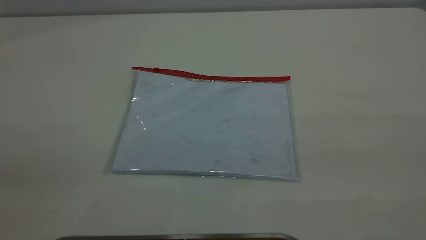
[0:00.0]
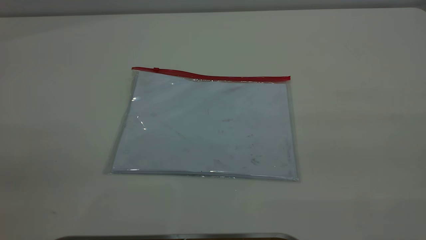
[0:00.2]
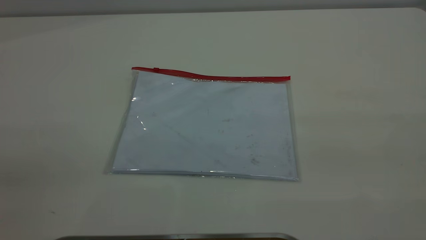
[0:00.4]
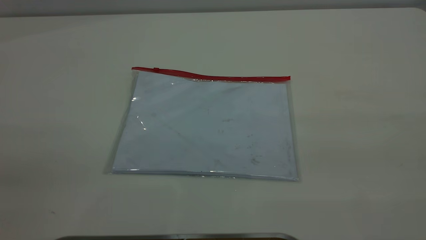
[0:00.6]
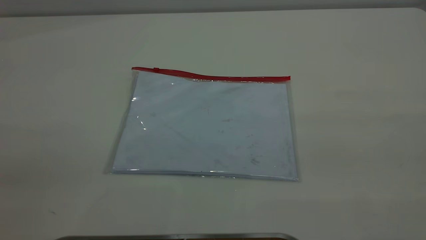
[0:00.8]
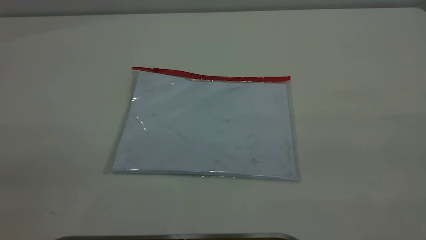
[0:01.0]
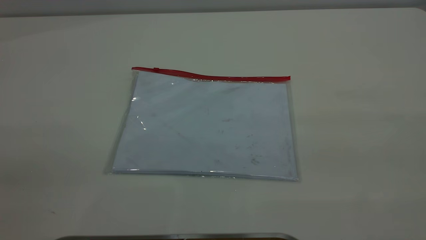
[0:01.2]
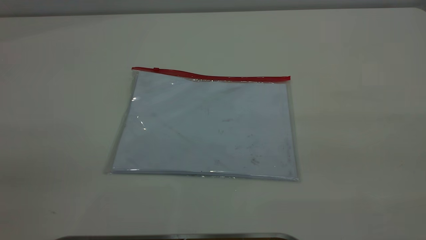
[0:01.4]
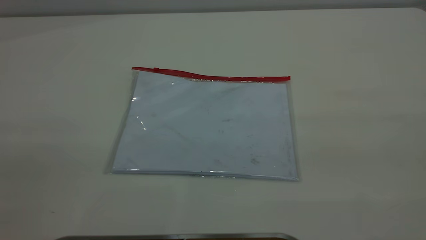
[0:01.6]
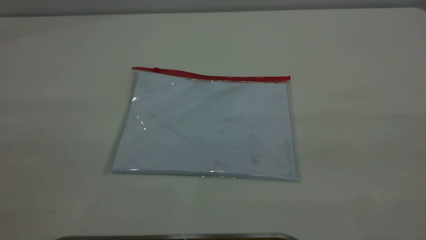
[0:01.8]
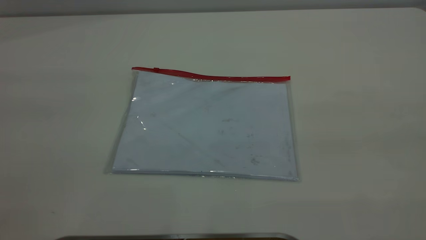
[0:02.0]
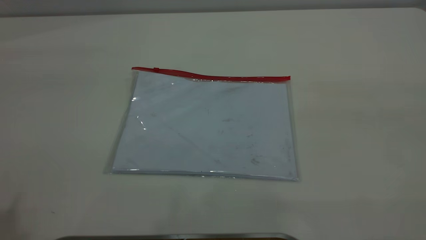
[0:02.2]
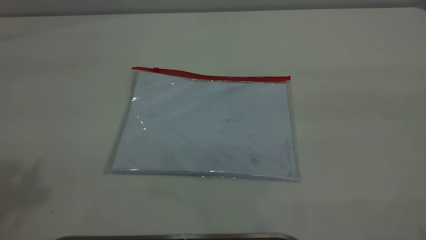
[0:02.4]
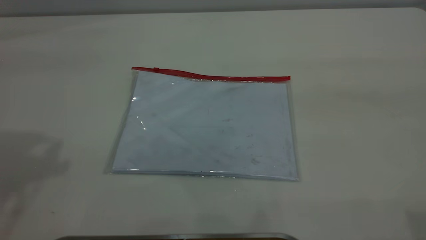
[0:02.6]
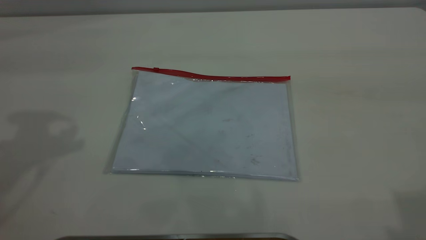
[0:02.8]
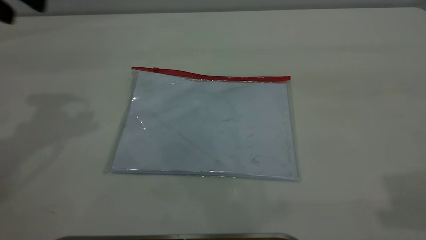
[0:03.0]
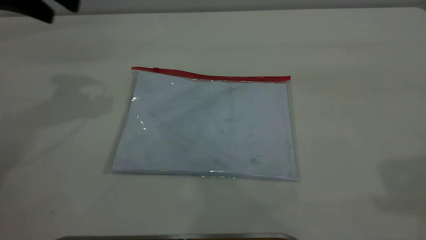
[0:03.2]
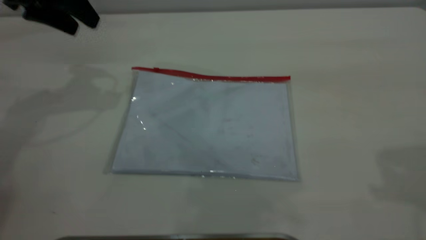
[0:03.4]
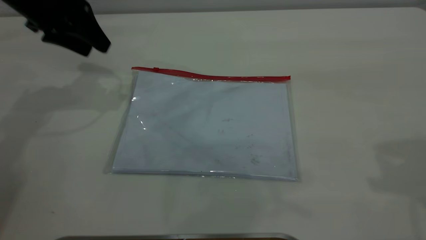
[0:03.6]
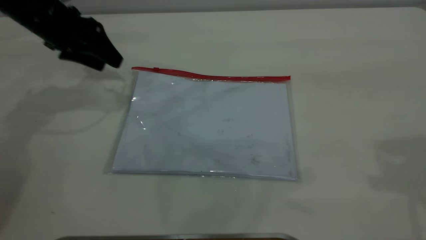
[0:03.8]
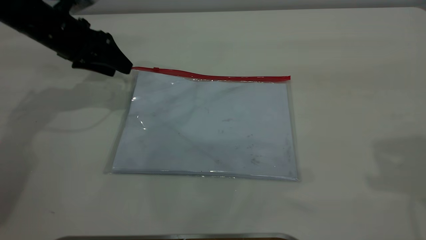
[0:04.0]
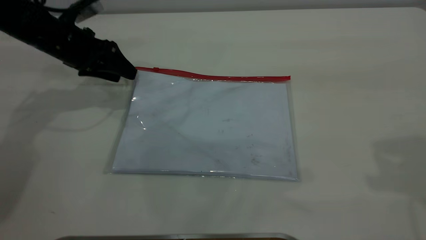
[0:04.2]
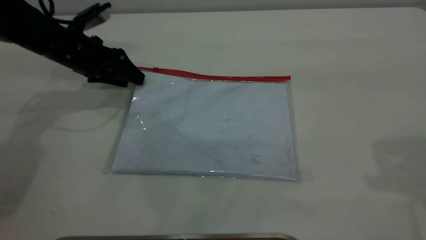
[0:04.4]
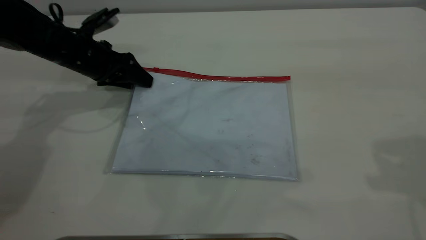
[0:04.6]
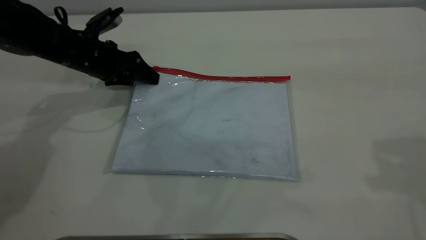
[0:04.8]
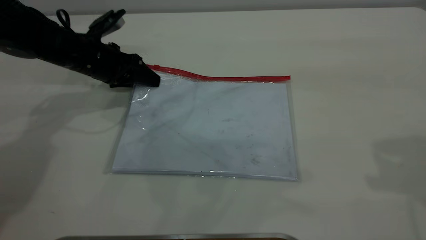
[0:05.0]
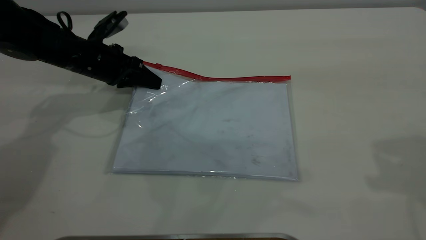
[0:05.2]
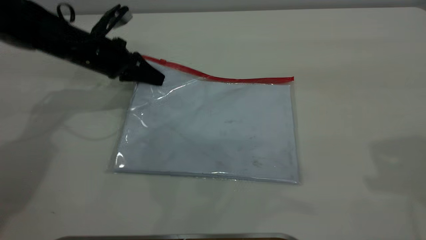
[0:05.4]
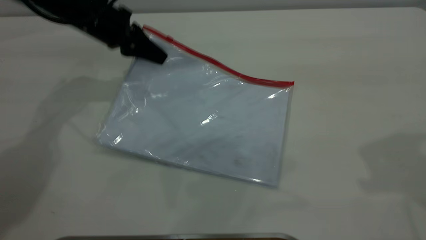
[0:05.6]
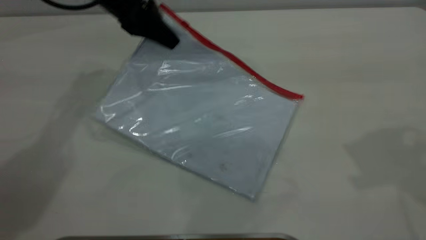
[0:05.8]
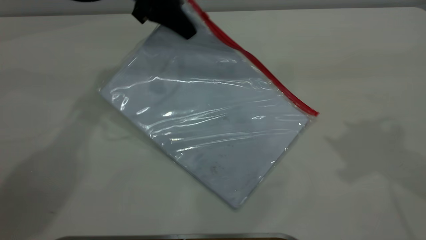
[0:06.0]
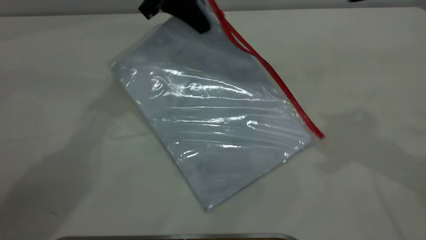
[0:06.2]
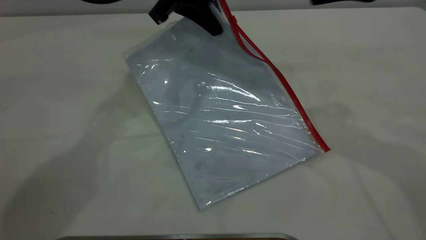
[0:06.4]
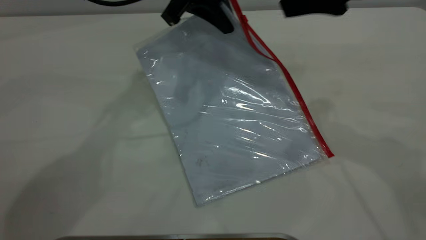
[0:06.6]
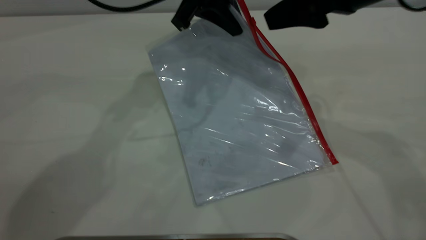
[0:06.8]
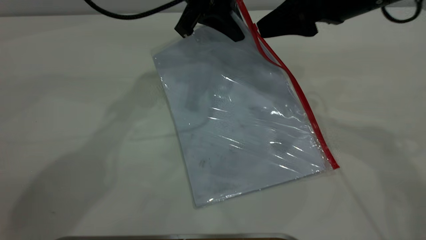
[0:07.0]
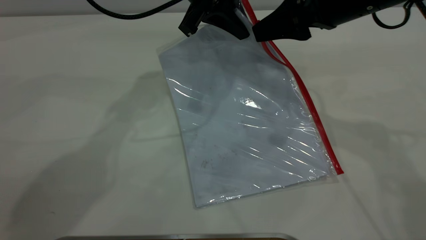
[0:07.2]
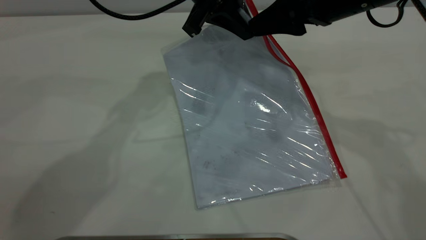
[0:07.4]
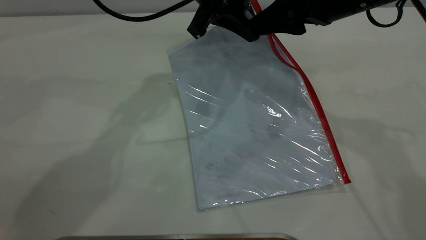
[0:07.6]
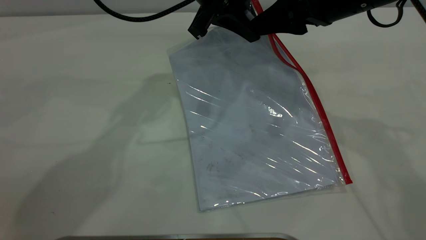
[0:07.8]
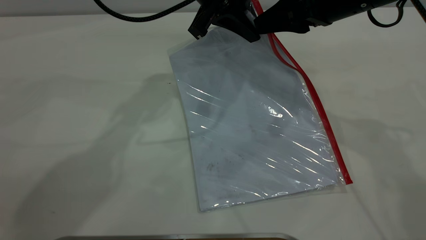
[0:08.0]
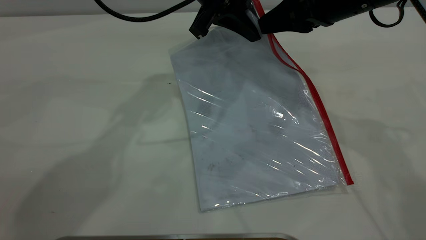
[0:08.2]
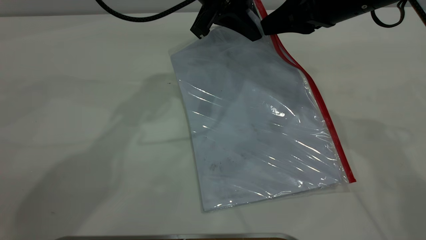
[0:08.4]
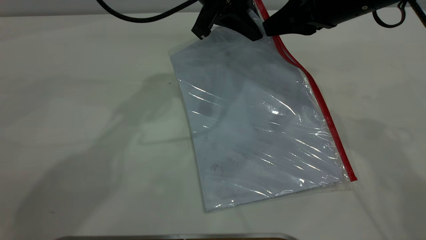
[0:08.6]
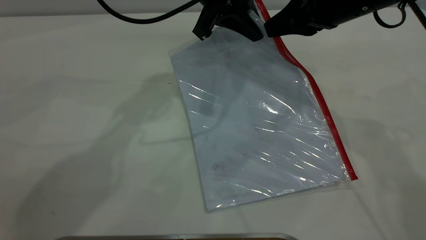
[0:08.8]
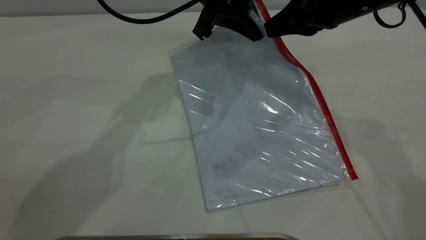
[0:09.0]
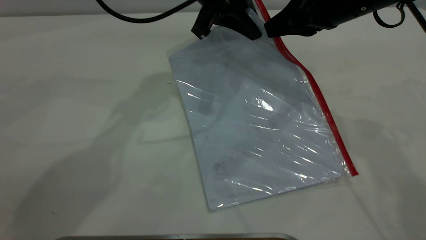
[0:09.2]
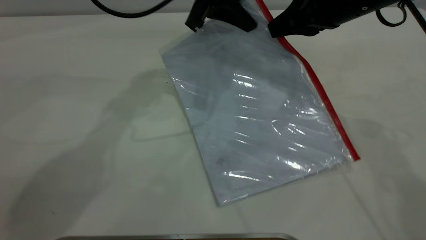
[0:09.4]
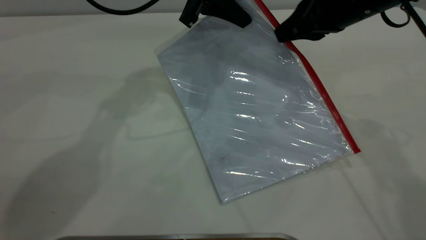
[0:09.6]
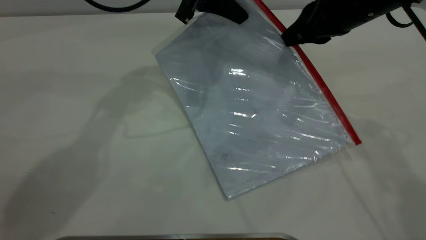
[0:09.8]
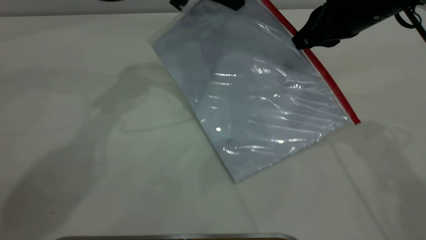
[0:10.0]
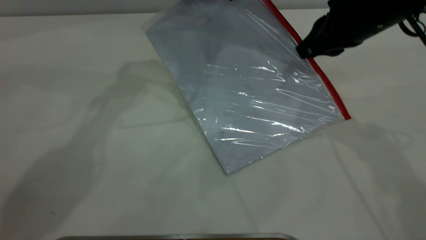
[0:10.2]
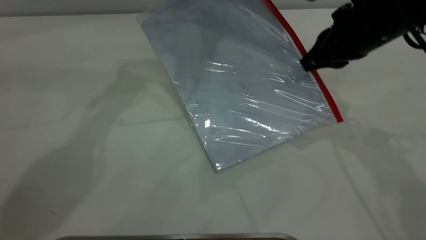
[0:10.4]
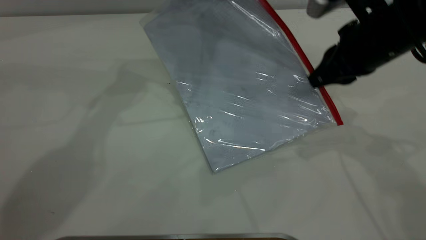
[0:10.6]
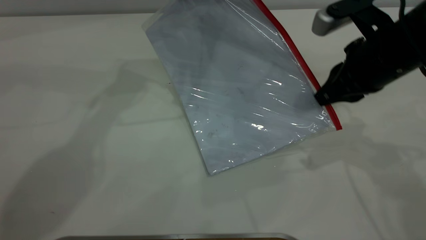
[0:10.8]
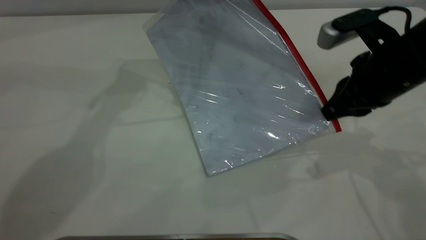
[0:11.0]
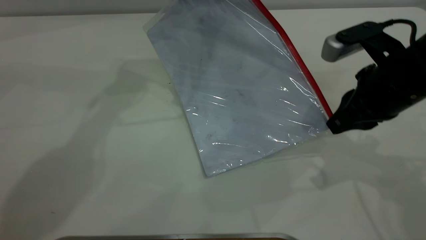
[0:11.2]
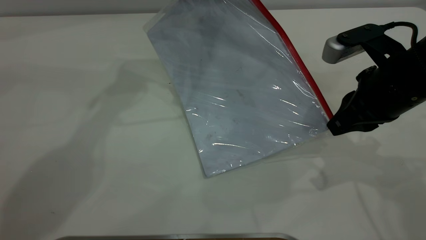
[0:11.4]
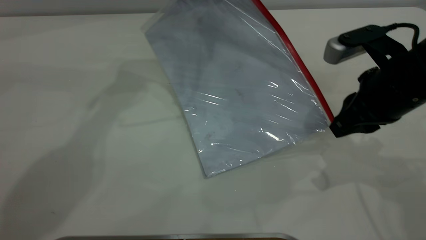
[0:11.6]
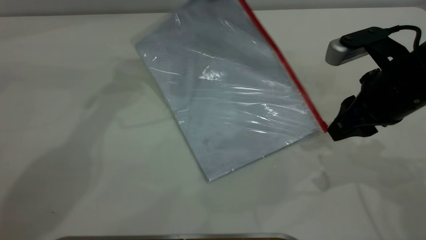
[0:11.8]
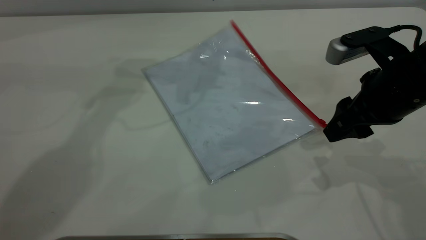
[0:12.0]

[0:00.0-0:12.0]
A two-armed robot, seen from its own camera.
Step, 0:00.0 to 0:05.4: Pick up the transparent plastic bag with the left gripper.
Step, 0:05.6 to 0:11.6: Pulling up the zipper on the transparent plastic bag with the right gripper to close it.
0:03.0 to 0:04.4: The left gripper heads downward and forward, covering roughly 20 cm.
0:04.4 to 0:06.0: The left gripper heads to the right and upward, covering some 20 cm, and closes its fingers; the right gripper shifts by about 5 cm.
0:06.0 to 0:07.6: The right gripper shifts approximately 15 cm downward, to the left and forward. Meanwhile the left gripper is displaced to the right by approximately 10 cm.
0:07.6 to 0:09.0: The right gripper closes up.
0:09.0 to 0:10.4: The left gripper heads upward, covering about 5 cm.
0:10.4 to 0:12.0: The left gripper opens up. The right gripper shifts roughly 5 cm backward, and opens up.

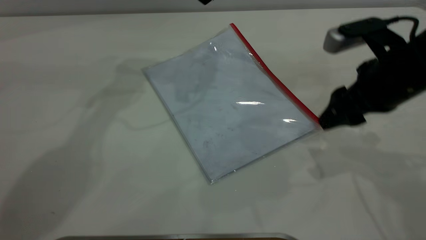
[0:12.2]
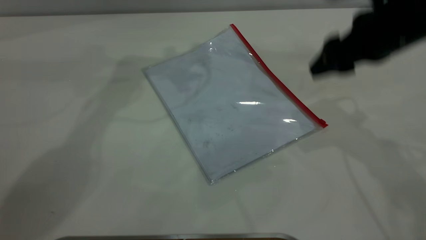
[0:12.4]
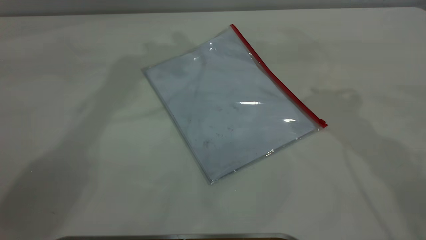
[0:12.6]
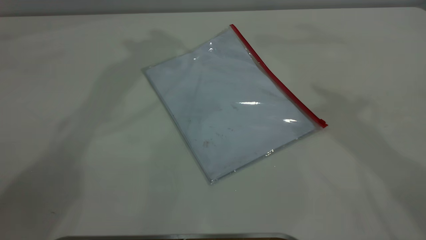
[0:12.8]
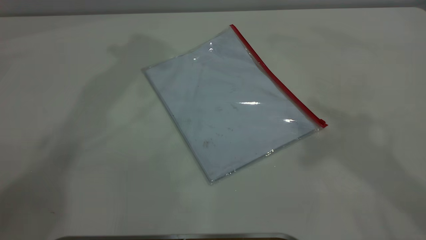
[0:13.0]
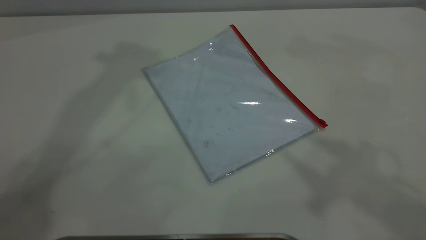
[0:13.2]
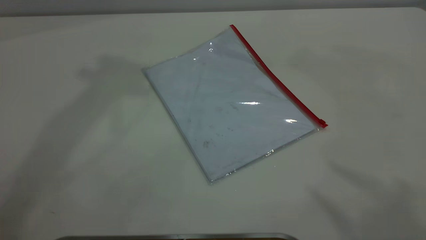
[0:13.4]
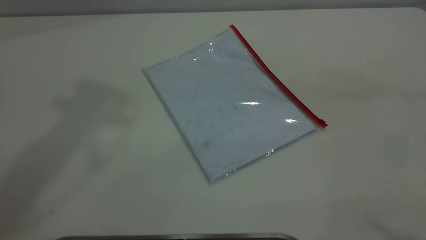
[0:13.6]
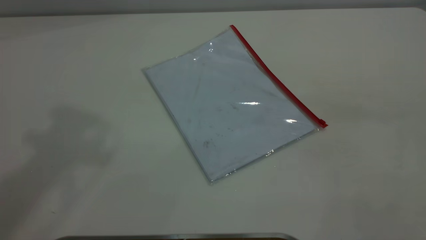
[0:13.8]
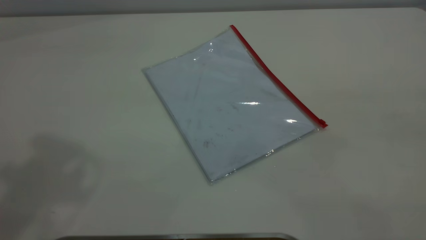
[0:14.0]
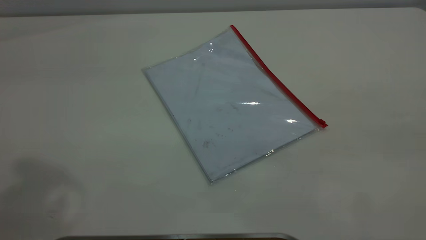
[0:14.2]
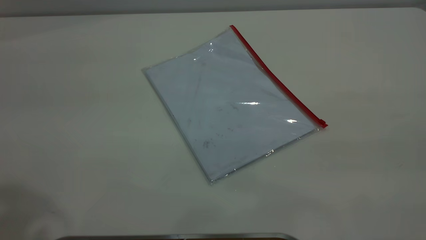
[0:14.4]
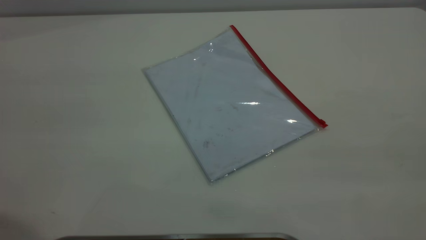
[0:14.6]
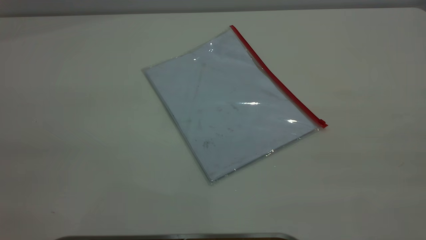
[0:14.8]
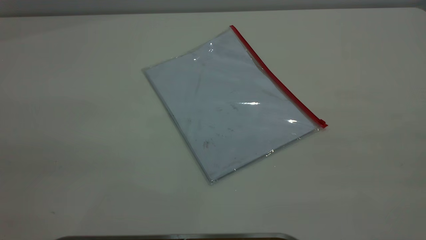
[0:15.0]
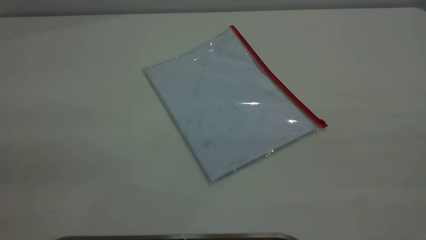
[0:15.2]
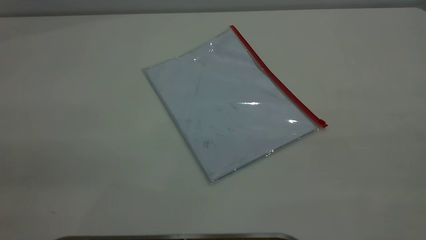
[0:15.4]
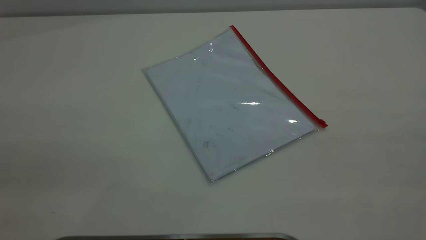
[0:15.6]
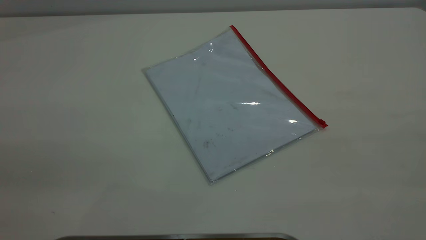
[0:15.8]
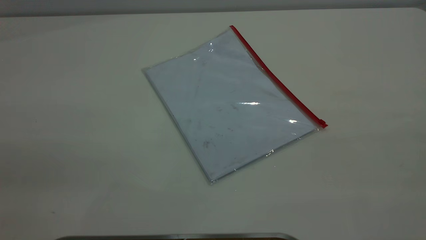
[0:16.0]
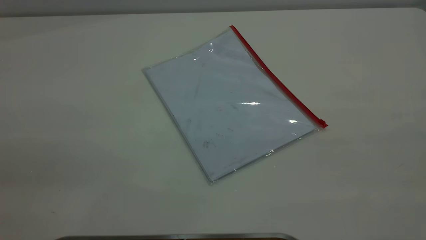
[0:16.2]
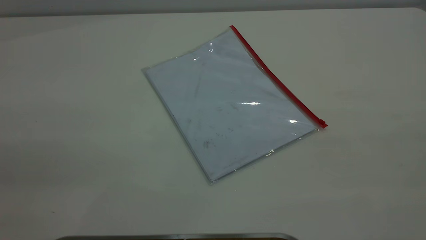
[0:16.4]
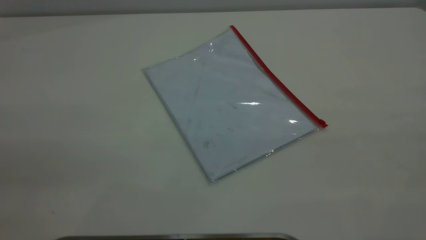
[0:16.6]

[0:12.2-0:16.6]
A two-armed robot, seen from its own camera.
0:12.2 to 0:13.6: Both grippers travel together upward and backward, some 35 cm.
